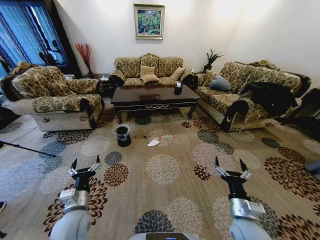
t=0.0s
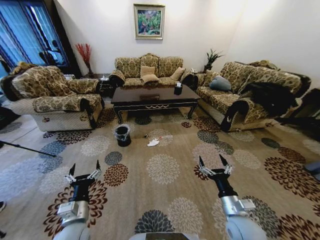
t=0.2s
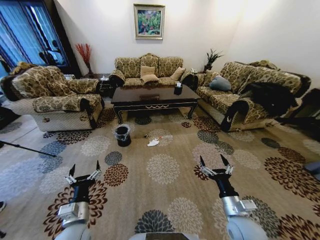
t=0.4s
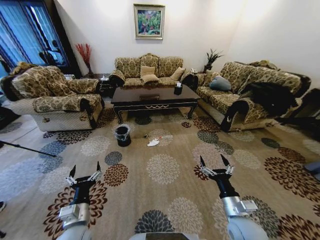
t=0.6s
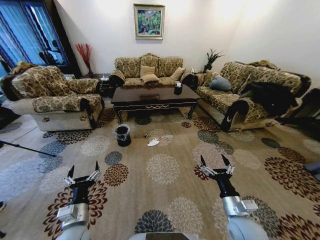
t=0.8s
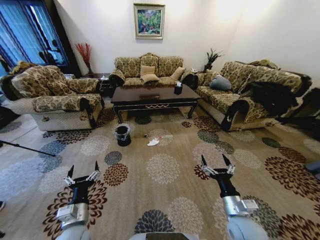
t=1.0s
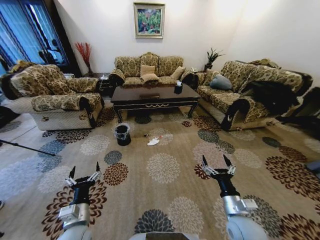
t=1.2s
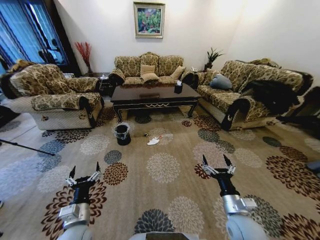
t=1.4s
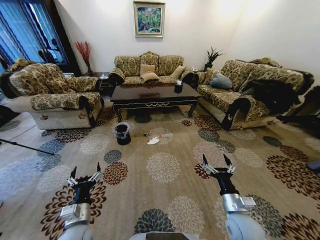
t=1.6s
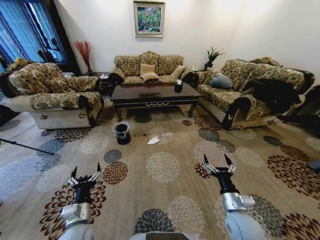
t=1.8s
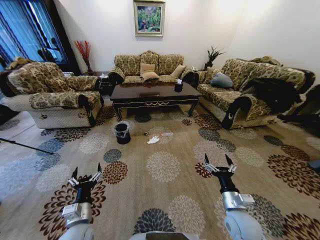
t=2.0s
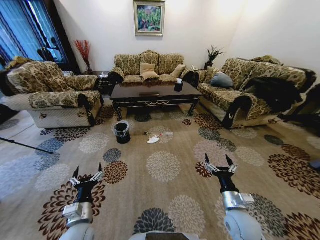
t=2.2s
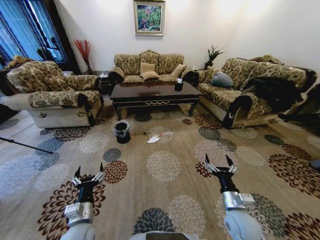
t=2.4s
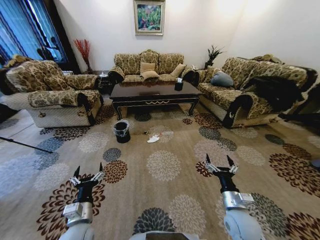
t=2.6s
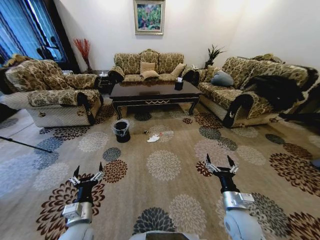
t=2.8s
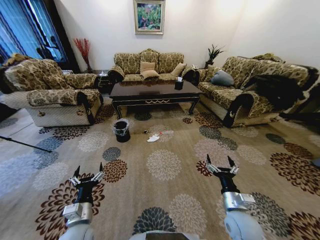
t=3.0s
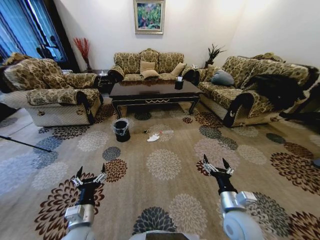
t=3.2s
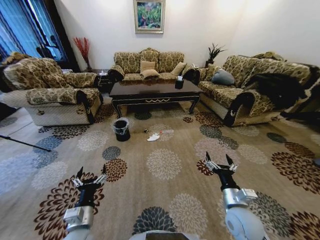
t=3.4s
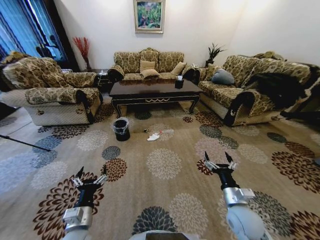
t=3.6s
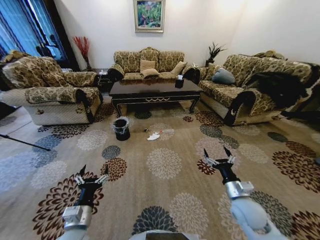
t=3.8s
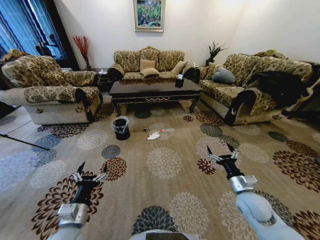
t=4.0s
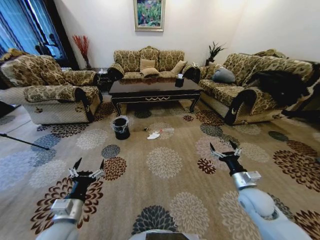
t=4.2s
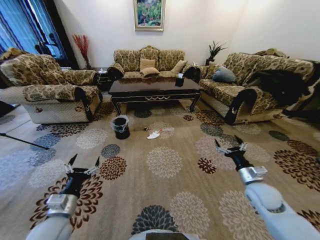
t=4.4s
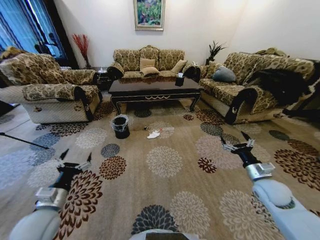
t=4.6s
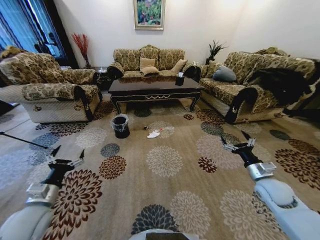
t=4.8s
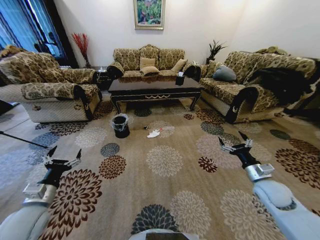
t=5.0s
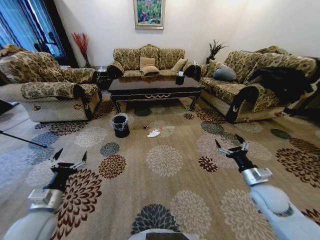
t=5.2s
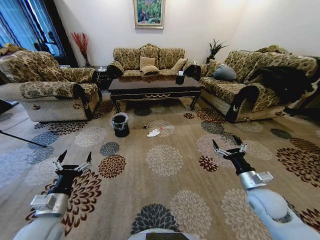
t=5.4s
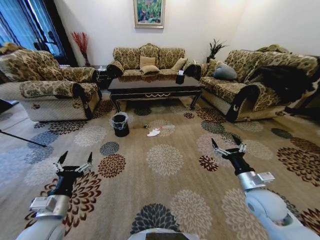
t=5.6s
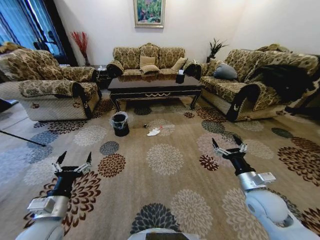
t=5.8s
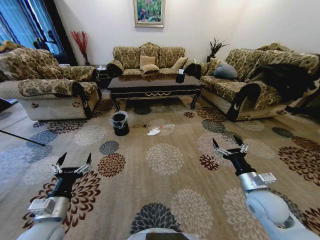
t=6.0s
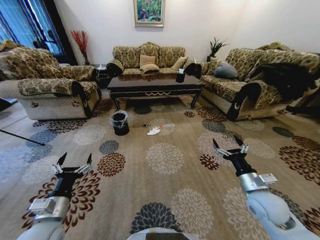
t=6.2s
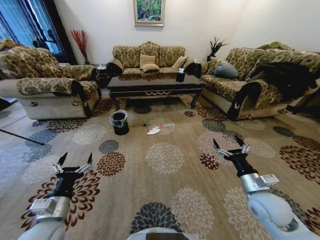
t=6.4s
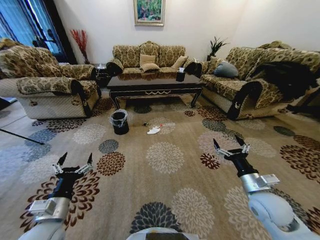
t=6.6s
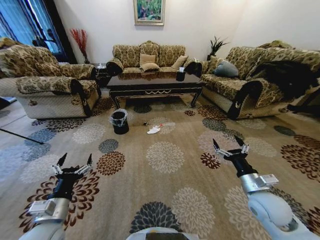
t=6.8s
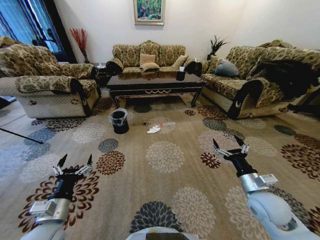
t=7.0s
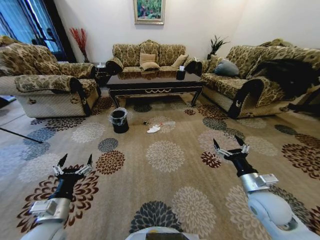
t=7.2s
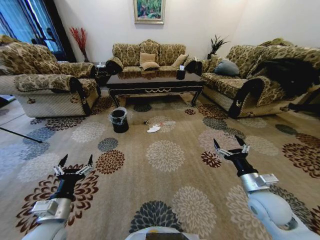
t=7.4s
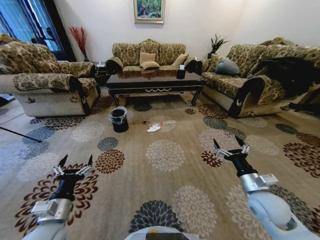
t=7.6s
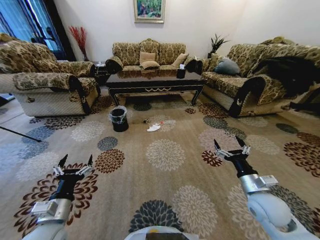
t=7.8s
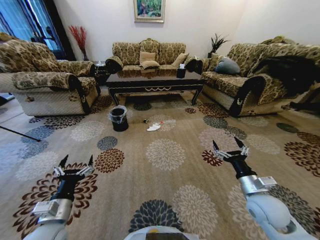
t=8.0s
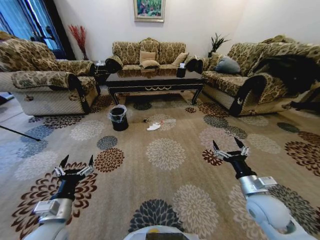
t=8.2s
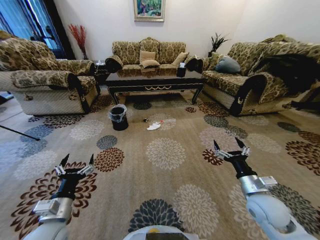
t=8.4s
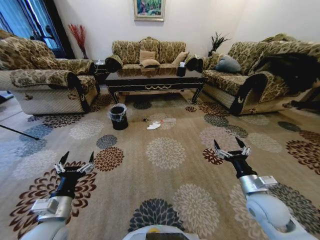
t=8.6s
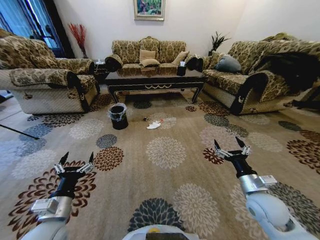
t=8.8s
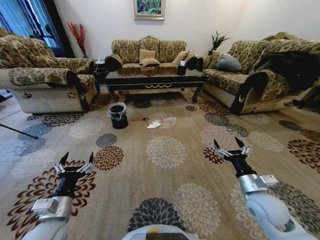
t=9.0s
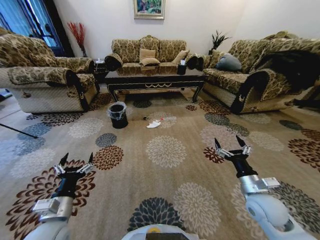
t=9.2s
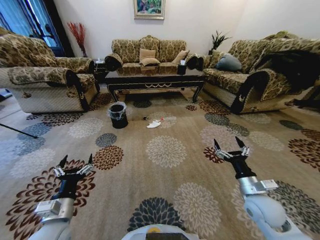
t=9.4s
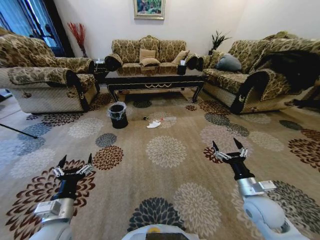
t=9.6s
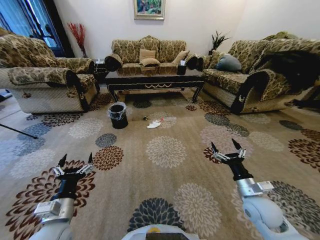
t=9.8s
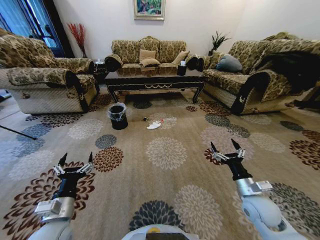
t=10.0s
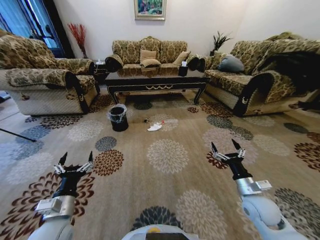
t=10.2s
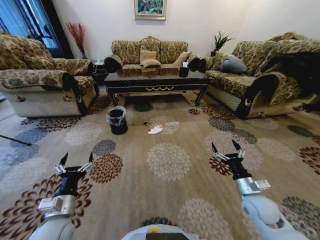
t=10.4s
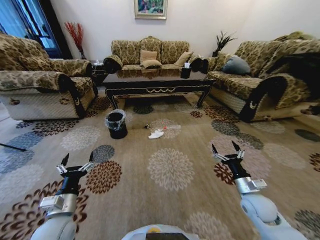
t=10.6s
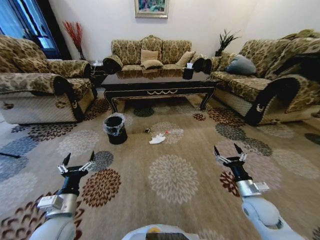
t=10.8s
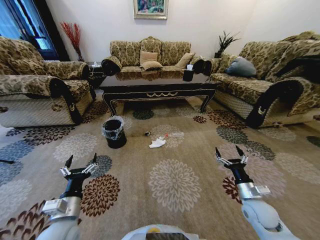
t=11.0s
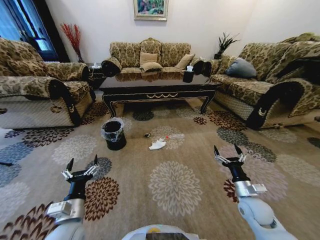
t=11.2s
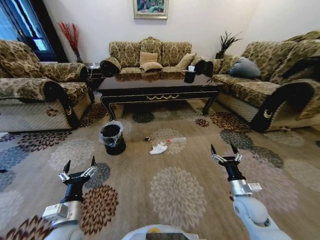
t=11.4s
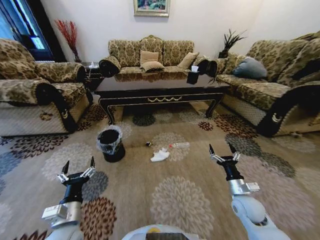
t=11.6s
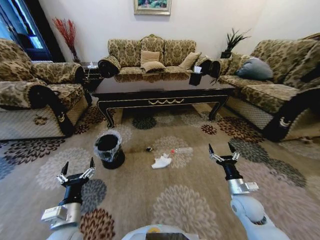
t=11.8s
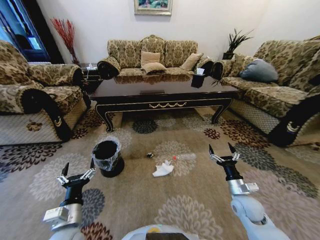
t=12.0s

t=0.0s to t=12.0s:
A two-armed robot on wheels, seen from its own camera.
Task of the whole recording: Move to the front of the table and pick up the trash from the floor, then place it into the trash bin.
t=3.0s to t=4.4s: The left gripper travels to the left by roughly 5 cm, while the right gripper goes roughly 15 cm to the right and forward.
t=4.4s to t=6.0s: The right gripper changes place by approximately 5 cm.
t=9.0s to t=10.4s: The right gripper ends up roughly 5 cm from where it was.

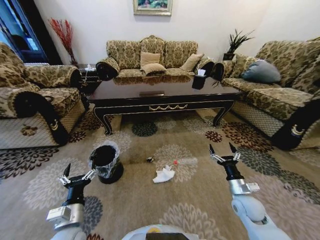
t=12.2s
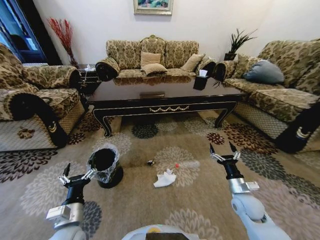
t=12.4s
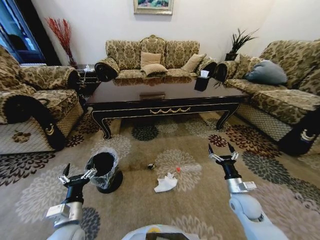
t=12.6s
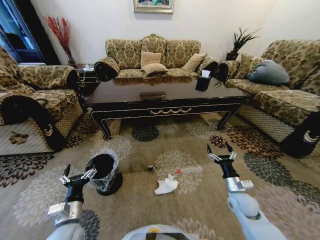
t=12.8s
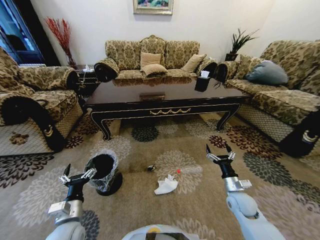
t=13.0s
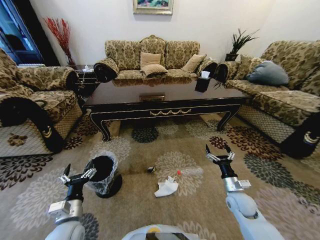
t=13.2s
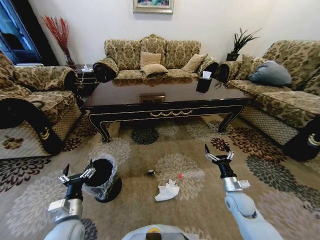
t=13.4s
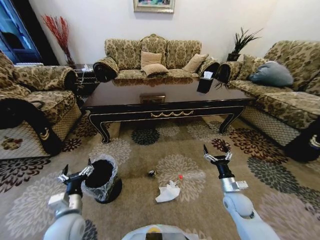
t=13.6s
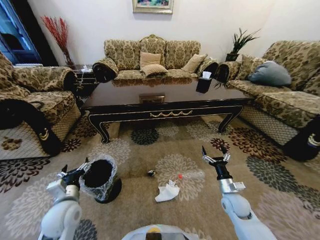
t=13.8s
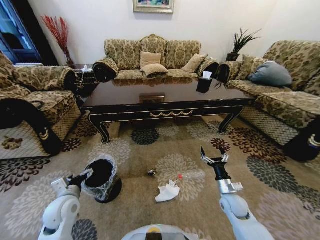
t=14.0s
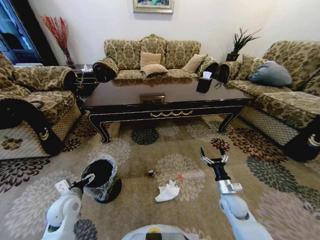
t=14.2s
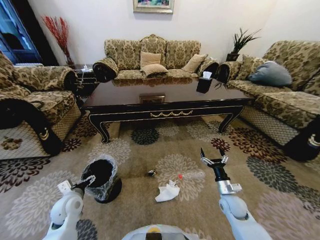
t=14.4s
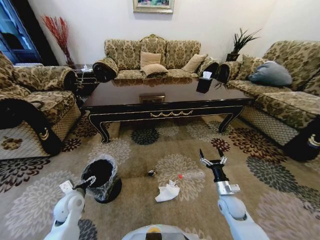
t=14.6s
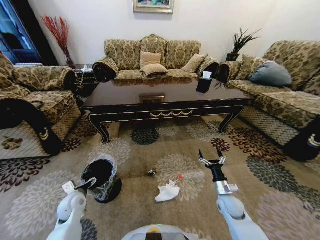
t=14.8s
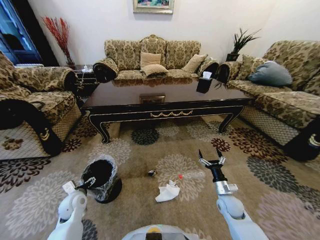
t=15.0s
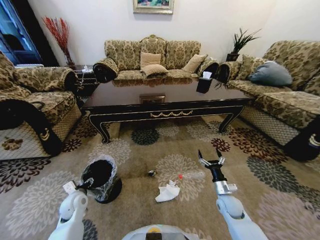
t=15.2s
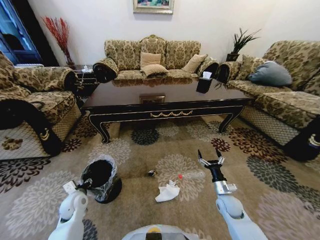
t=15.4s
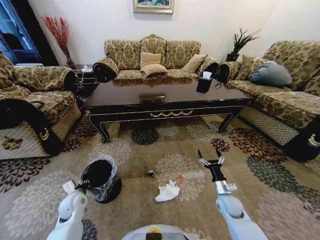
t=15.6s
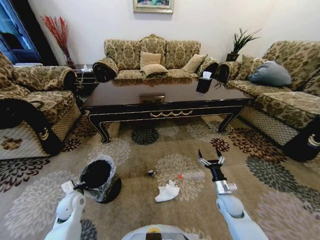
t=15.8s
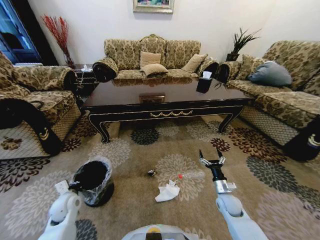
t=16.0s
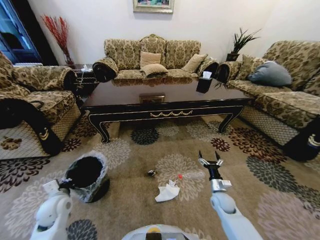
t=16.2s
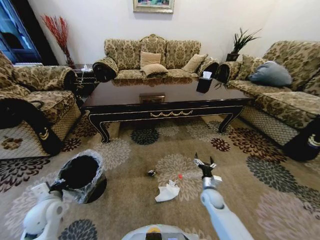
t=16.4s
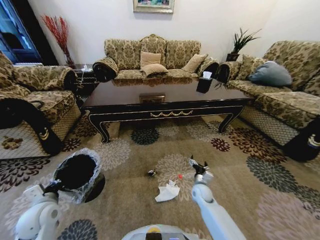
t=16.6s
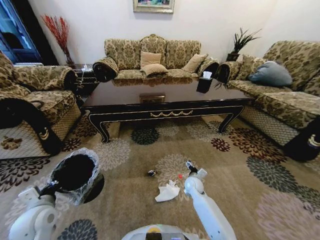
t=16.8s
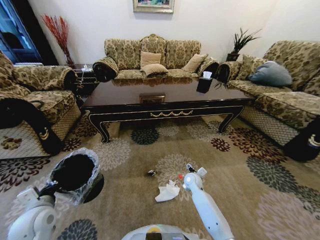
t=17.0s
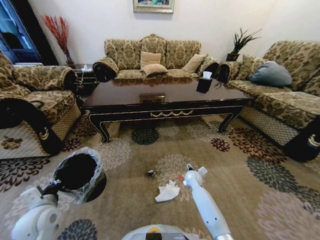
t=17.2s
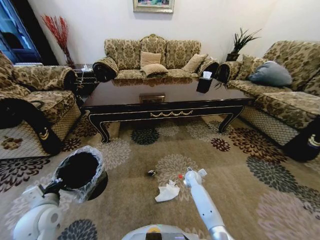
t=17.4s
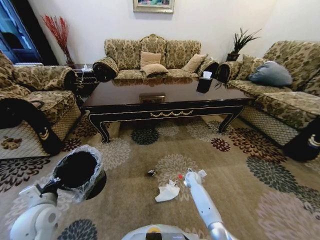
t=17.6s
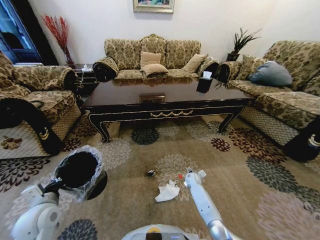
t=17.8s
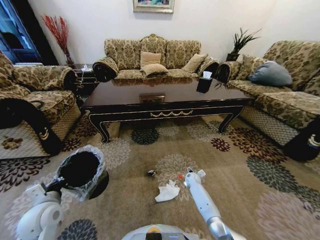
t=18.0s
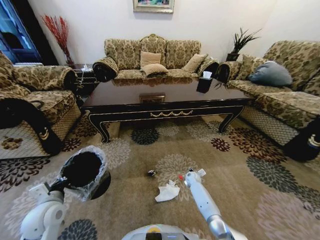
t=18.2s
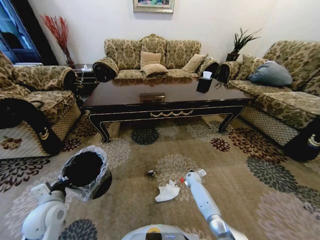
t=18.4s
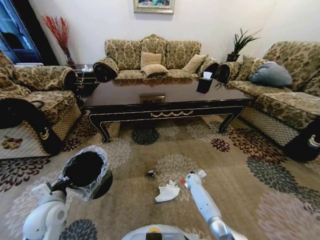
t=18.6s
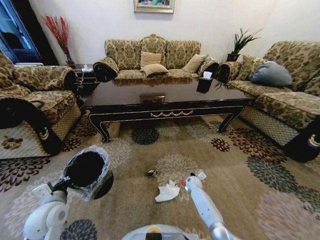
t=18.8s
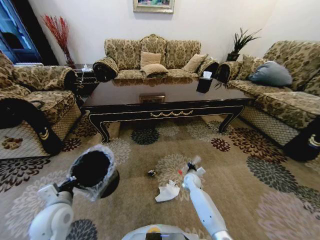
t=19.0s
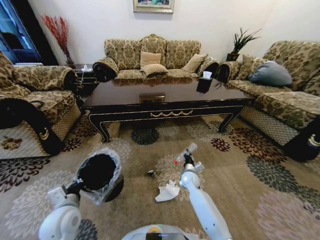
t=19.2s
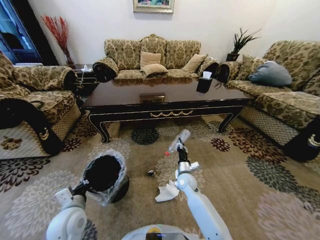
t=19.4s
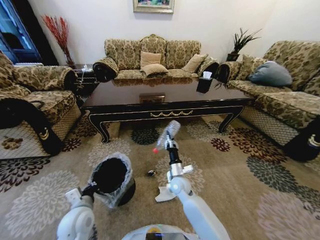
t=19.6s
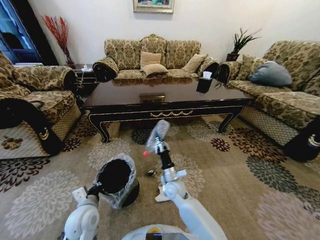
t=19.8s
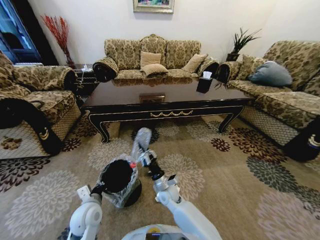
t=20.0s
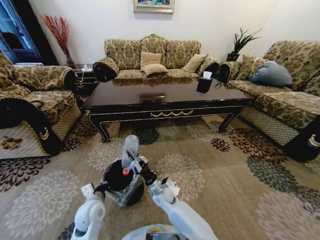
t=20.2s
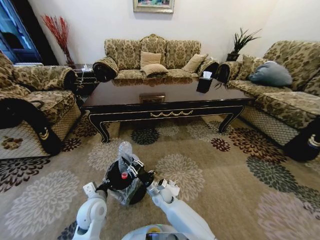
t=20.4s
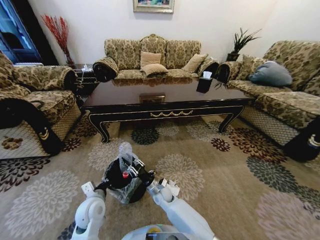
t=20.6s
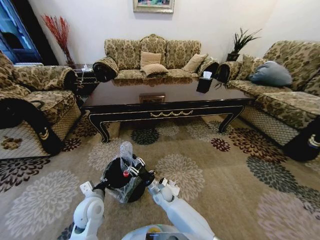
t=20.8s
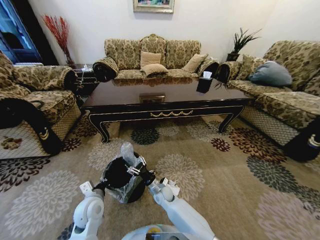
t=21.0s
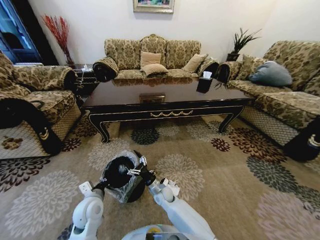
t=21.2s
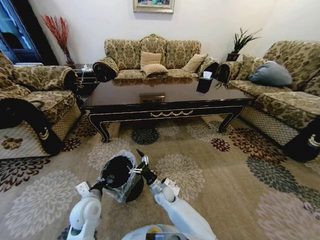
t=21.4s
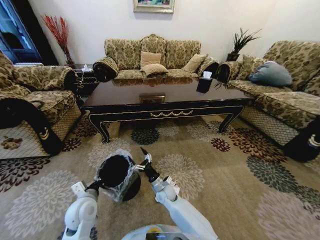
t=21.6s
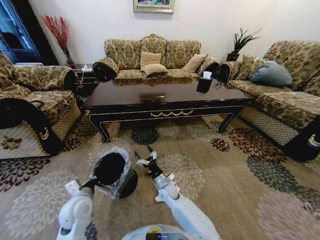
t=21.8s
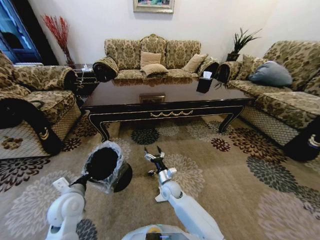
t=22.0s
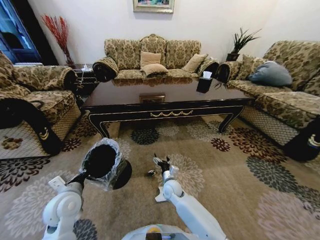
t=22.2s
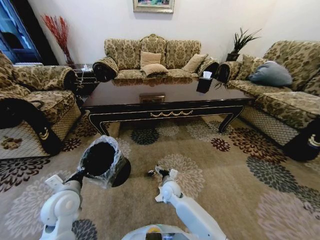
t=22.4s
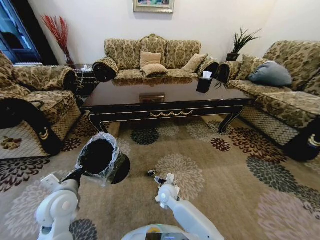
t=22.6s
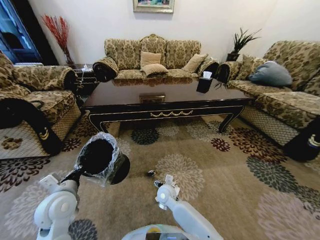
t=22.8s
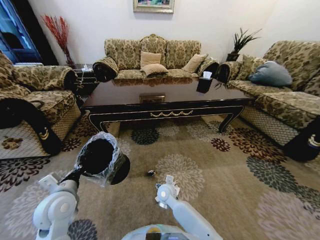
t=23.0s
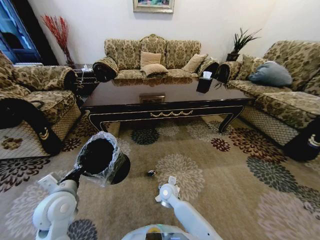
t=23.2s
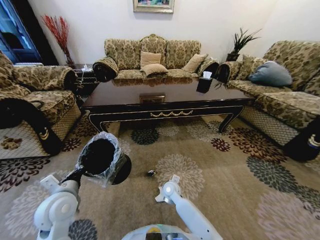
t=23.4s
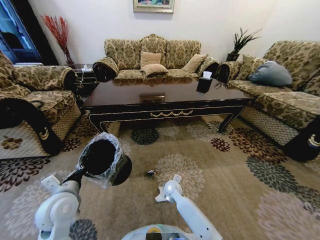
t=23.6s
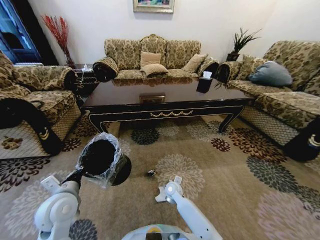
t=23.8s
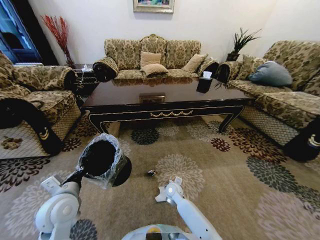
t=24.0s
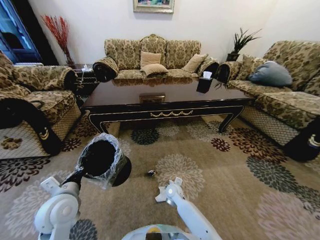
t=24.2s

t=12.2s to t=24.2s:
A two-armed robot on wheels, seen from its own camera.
Task of the whole recording: Move to the front of the table and pick up the trash from the floor, then place it into the trash bin.
t=12.2s to t=13.8s: The left gripper travels forward by roughly 5 cm.
t=13.8s to t=15.2s: The left gripper shifts about 10 cm downward and forward.
t=15.2s to t=16.6s: The left gripper moves upward and backward, roughly 10 cm, and closes, while the right gripper shifts approximately 10 cm to the left and forward.
t=16.6s to t=18.2s: The right gripper travels forward and downward by some 15 cm.
t=18.2s to t=19.8s: The left gripper heads to the right, covering some 10 cm. Meanwhile the right gripper goes approximately 25 cm to the left, upward and backward, and closes up.
t=19.8s to t=21.2s: The right gripper moves downward, about 10 cm, and opens.
t=21.2s to t=22.6s: The left gripper is displaced upward and to the left by roughly 10 cm.
t=22.6s to t=24.2s: The right gripper ends up about 5 cm from where it was.
